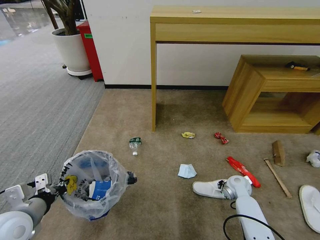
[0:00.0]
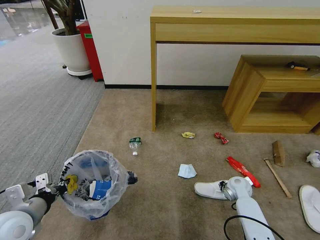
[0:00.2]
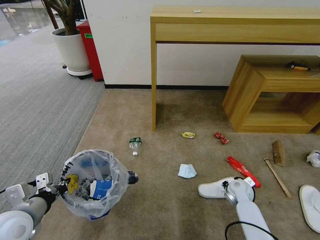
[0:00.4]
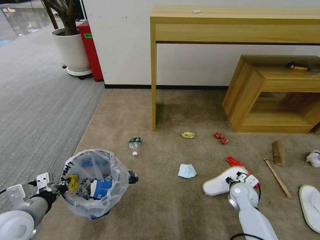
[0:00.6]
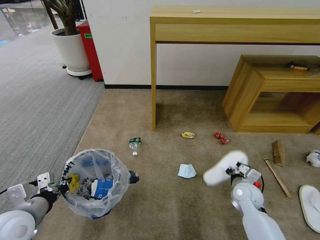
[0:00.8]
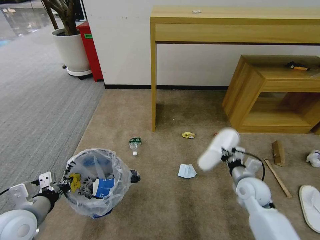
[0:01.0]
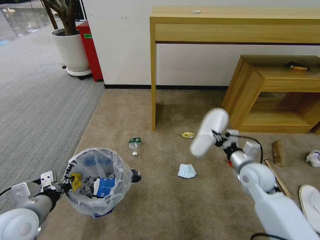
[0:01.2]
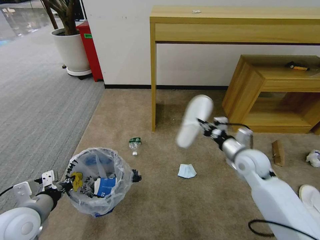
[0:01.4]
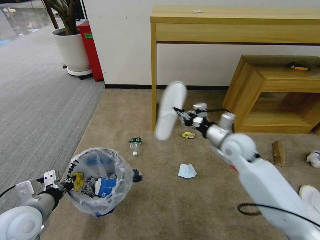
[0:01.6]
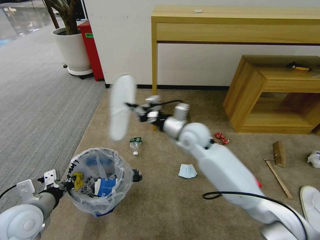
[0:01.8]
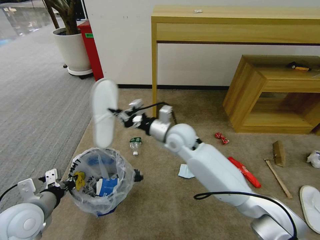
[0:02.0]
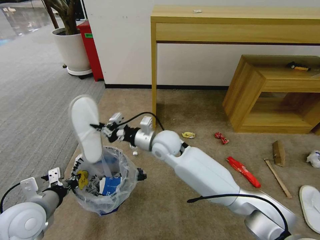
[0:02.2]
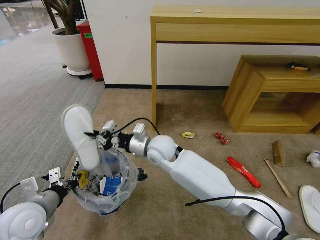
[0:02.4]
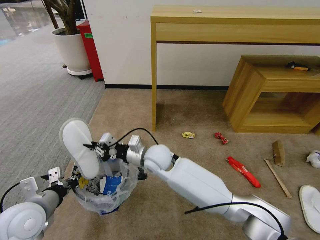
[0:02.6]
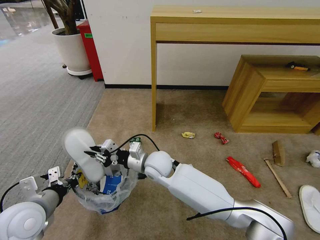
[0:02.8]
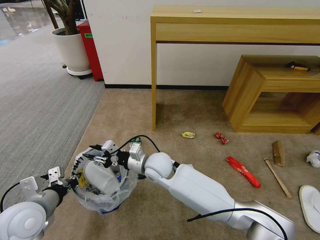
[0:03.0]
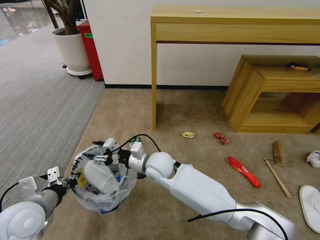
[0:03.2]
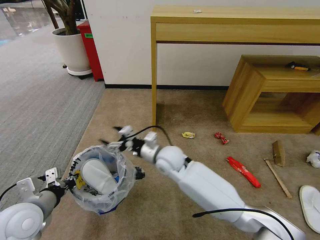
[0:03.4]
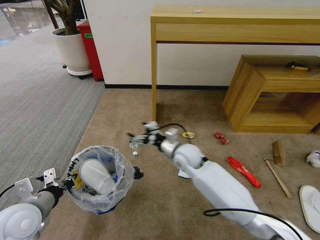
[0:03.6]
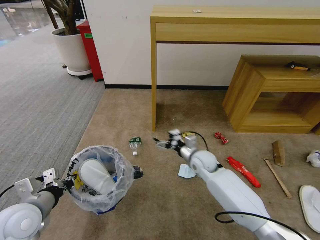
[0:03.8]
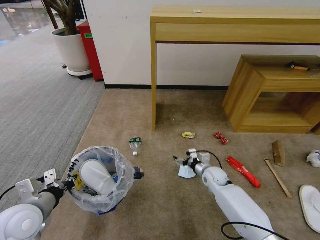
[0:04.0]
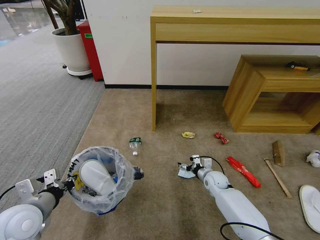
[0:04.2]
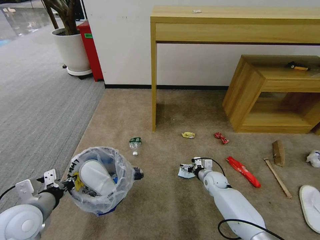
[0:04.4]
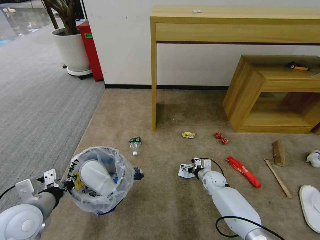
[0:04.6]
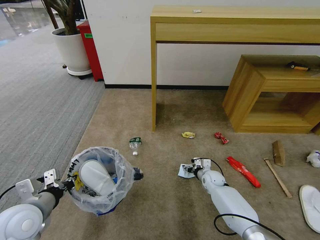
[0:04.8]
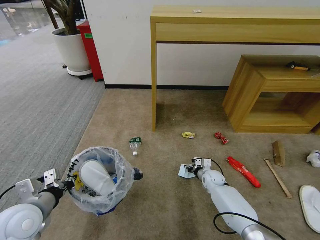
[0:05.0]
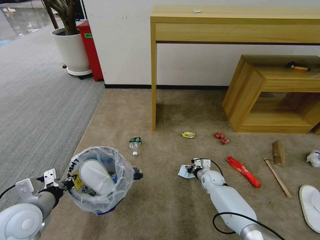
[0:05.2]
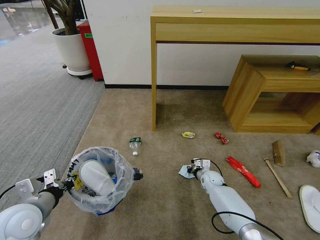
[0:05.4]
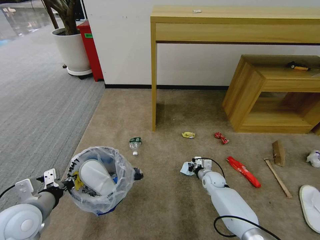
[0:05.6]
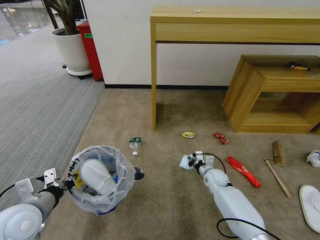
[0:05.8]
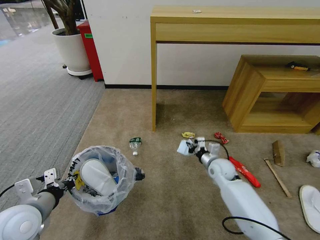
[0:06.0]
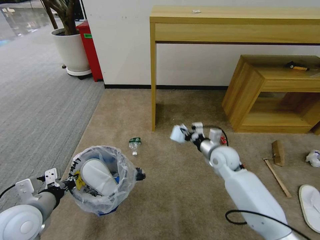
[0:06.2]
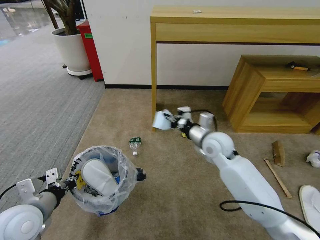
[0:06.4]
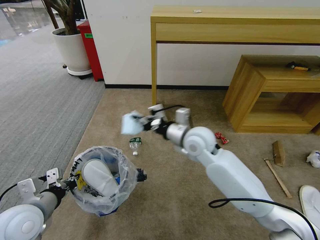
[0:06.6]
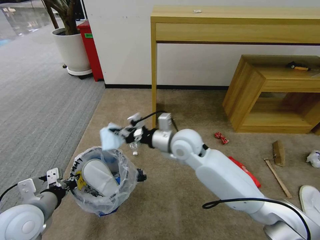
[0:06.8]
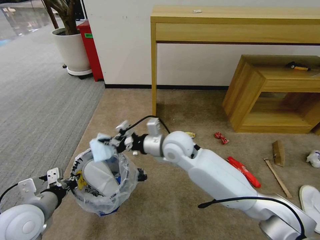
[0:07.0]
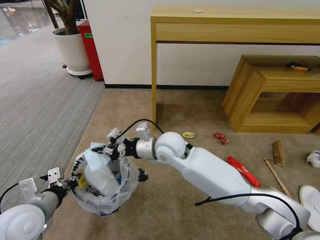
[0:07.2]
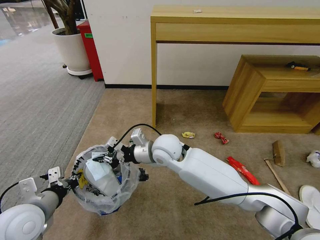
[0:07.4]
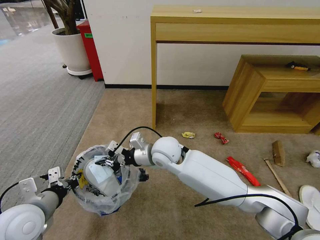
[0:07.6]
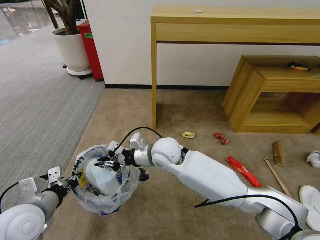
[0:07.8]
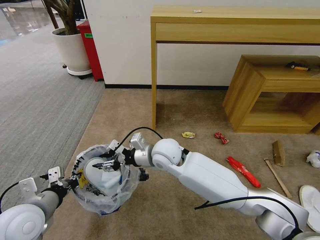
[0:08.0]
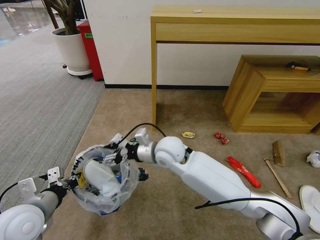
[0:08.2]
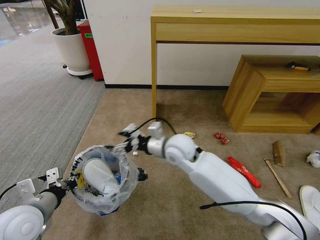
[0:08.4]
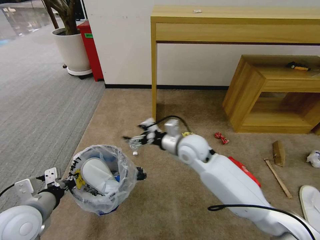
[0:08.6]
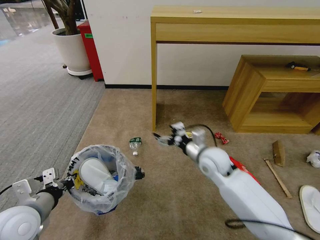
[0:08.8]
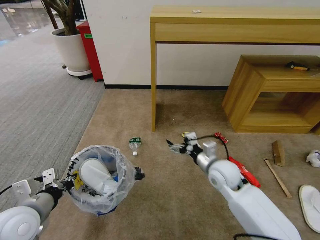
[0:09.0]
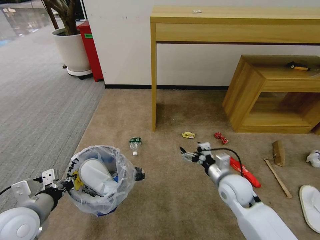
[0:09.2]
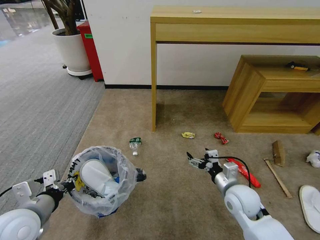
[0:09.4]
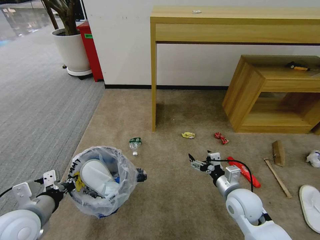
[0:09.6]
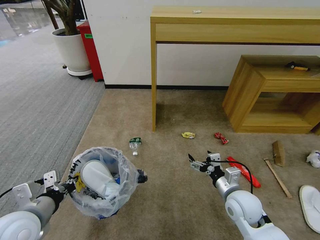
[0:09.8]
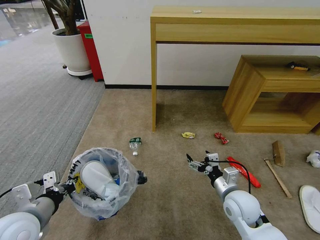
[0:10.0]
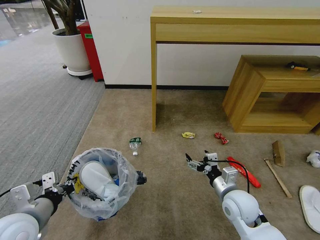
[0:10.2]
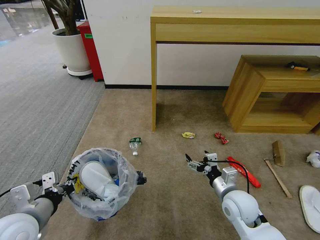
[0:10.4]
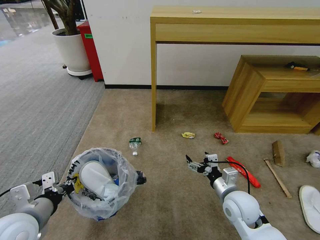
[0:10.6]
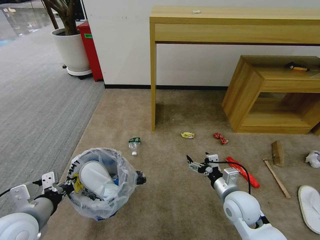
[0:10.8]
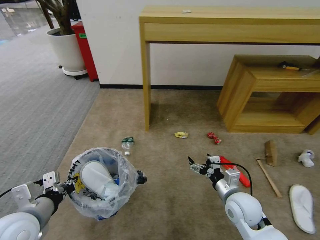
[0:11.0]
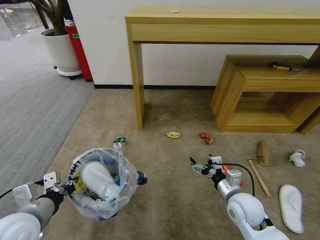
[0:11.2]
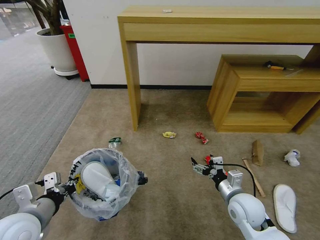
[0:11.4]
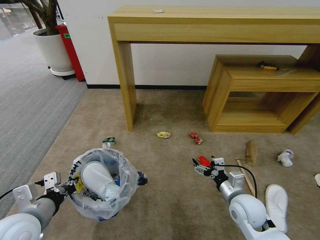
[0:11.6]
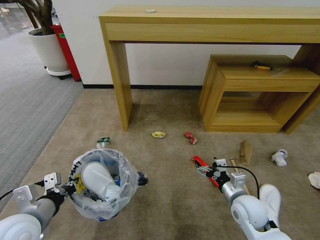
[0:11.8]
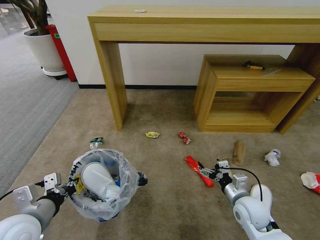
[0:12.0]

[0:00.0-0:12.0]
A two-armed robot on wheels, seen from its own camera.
Task of the whole recording: Pick up the trash bin and place the garbage on the floor into it.
0:00.0 to 0:01.6: The right gripper is displaced upward and to the left by roughly 25 cm.
0:01.6 to 0:03.0: The right gripper goes some 25 cm to the left, and opens.
0:03.0 to 0:04.4: The right gripper is displaced to the right and downward by some 35 cm, and opens.
0:04.4 to 0:06.0: The right gripper moves upward, about 10 cm, and closes.
0:06.0 to 0:07.6: The right gripper goes some 30 cm to the left and upward.
0:07.6 to 0:09.0: The right gripper heads to the right, covering roughly 20 cm, and opens its fingers.
0:09.0 to 0:10.4: The right gripper shifts about 10 cm backward.
0:10.4 to 0:12.0: The right gripper shifts by roughly 5 cm.

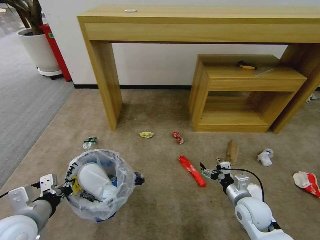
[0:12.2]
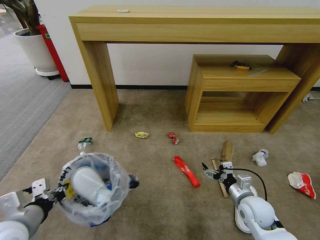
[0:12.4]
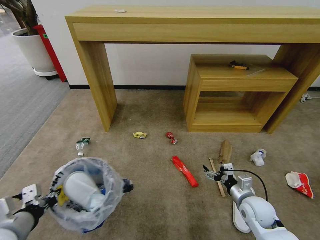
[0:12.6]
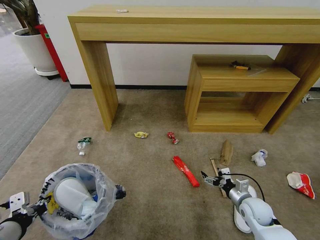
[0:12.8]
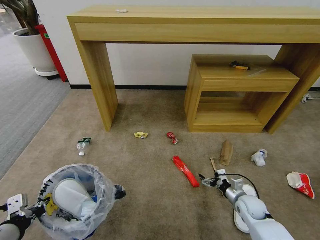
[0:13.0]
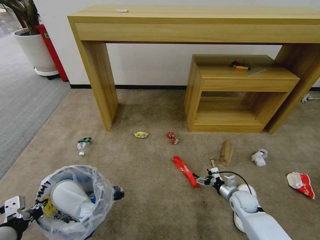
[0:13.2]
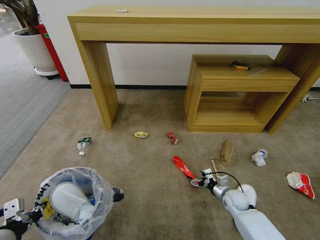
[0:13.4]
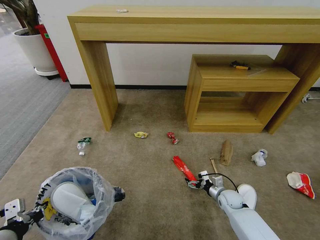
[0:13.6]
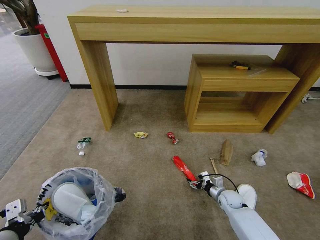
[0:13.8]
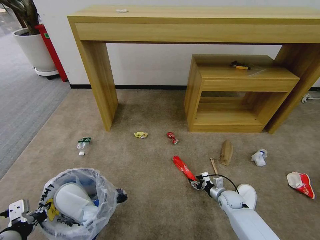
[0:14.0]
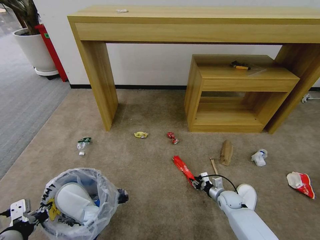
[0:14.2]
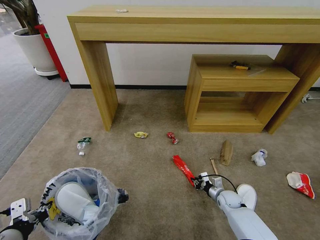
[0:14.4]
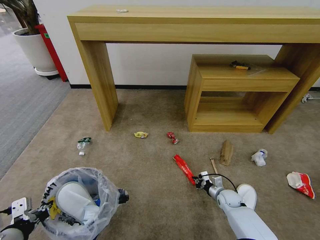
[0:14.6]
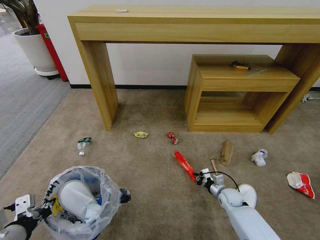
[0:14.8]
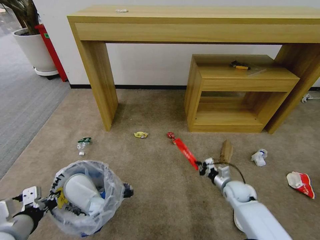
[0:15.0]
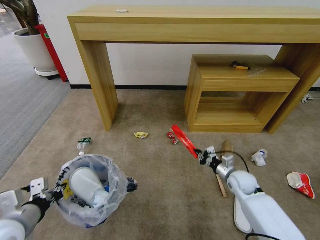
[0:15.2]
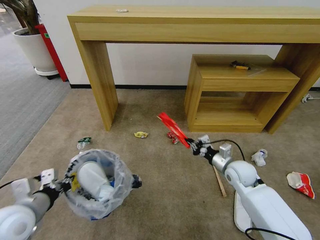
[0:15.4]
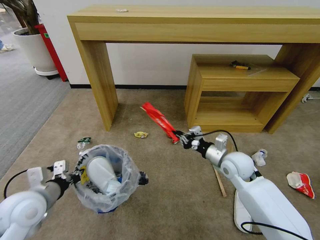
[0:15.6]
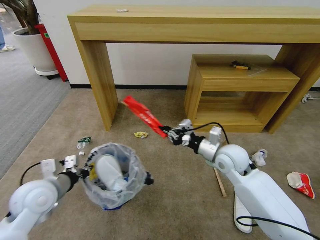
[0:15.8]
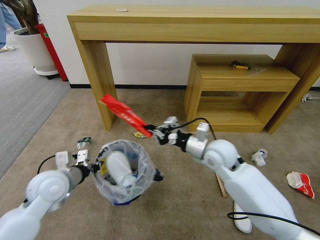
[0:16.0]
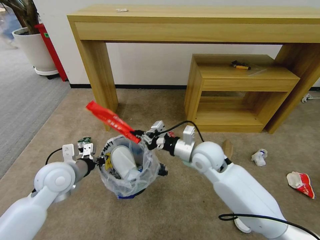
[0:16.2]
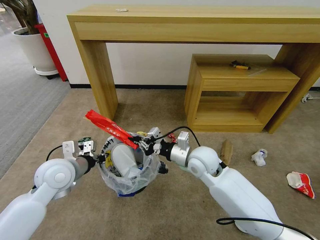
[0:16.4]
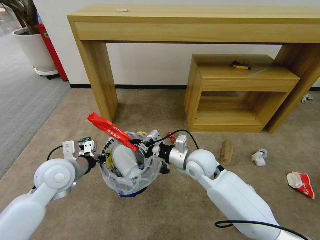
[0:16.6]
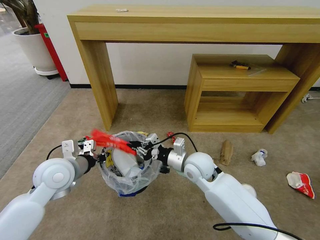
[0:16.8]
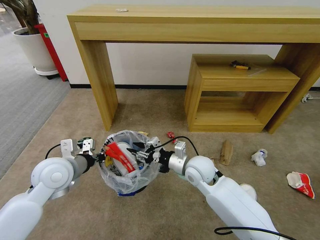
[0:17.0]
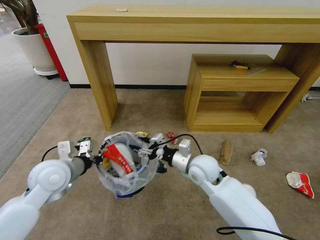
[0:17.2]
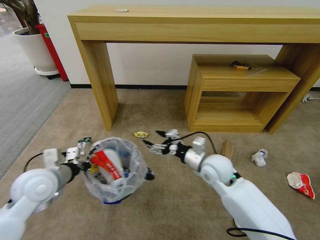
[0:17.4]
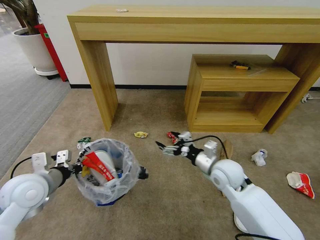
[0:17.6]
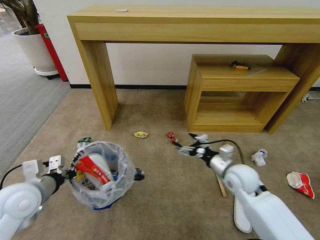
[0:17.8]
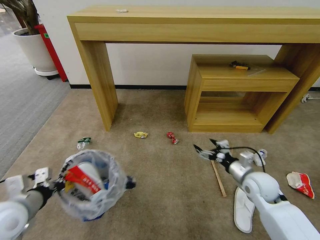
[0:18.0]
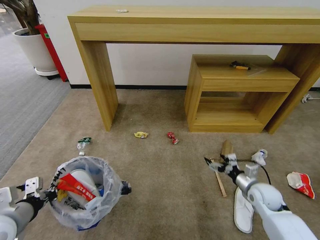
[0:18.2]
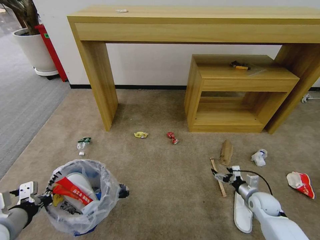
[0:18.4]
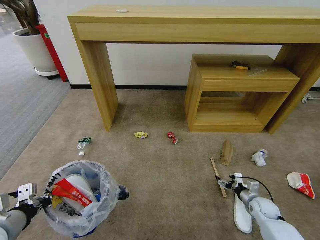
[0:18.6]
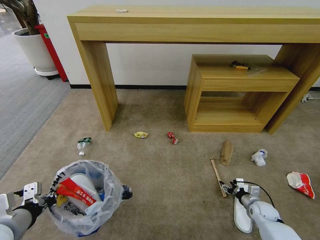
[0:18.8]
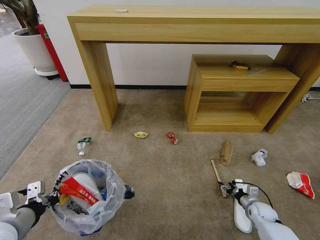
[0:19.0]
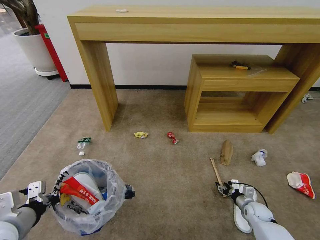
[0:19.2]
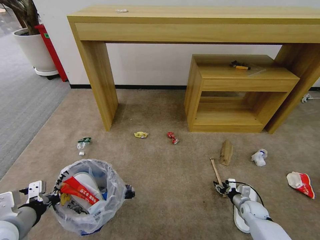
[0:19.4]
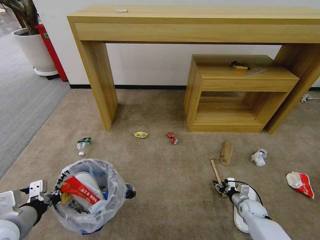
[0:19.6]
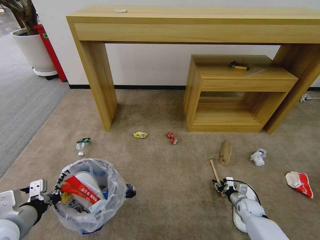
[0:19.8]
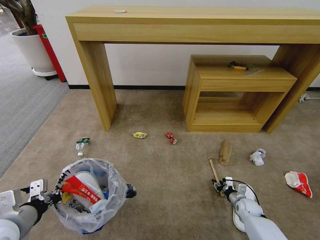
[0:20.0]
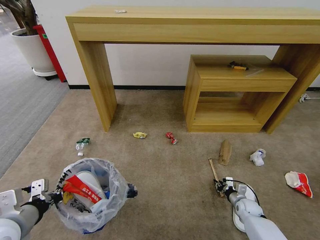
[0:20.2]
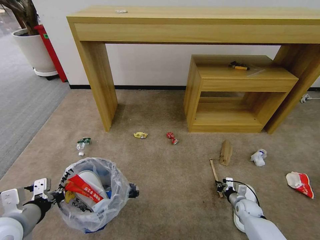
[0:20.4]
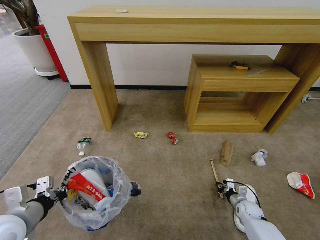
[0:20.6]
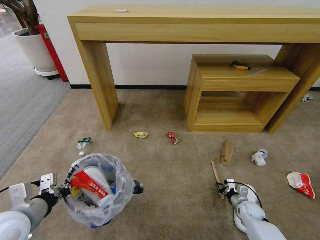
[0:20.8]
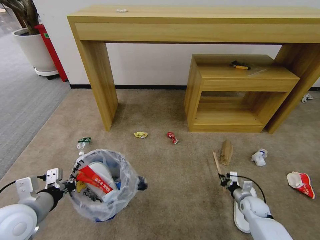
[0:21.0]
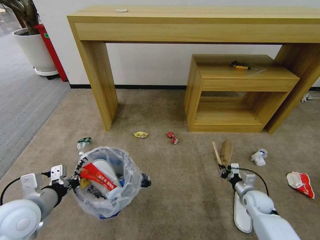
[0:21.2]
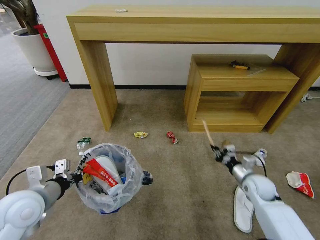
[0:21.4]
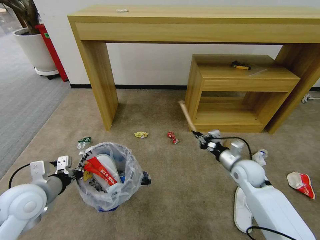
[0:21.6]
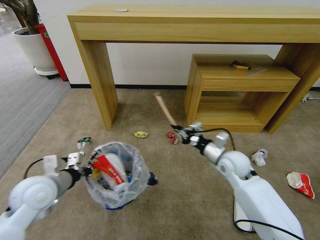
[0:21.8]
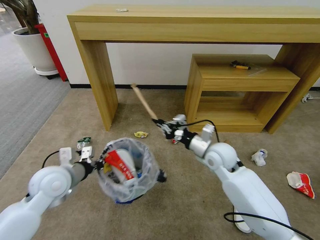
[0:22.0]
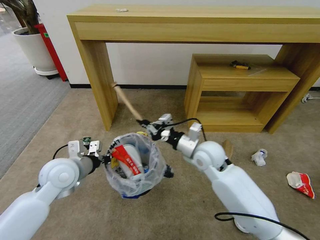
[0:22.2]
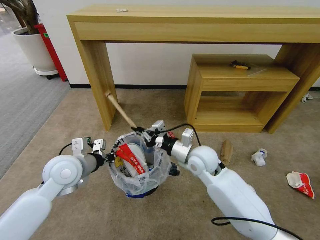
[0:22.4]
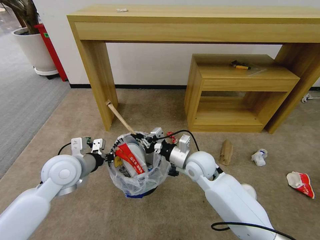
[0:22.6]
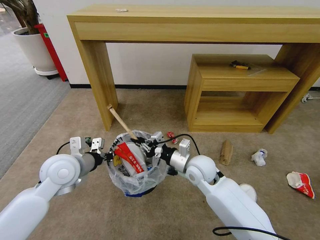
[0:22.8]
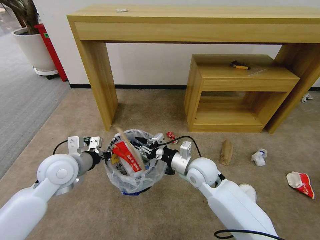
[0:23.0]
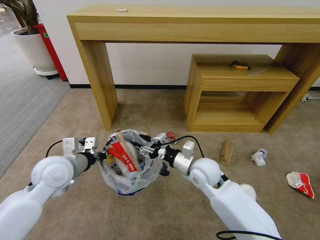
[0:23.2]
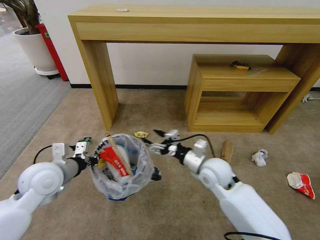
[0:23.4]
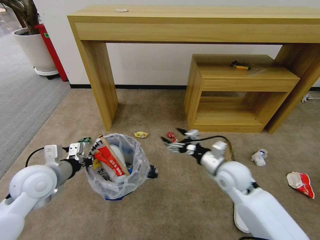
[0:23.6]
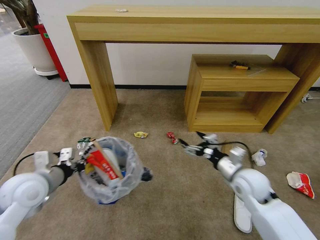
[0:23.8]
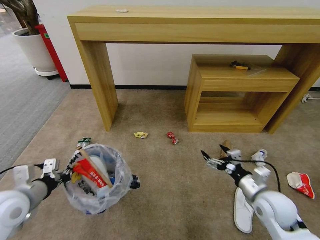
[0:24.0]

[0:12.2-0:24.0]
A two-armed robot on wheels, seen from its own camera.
Task of the whole recording: Pick up the trash bin and place the garbage on the floor into it.
0:12.2 to 0:13.6: The left gripper is displaced backward and to the left by approximately 10 cm, while the right gripper travels downward and forward by about 20 cm.
0:13.6 to 0:15.2: The left gripper heads forward, covering approximately 5 cm. Meanwhile the right gripper is displaced upward by approximately 10 cm, and closes up.
0:15.2 to 0:16.6: The right gripper heads to the left and upward, covering some 25 cm, while the left gripper shifts about 15 cm forward and to the right.
0:16.6 to 0:18.2: The left gripper is displaced backward and to the left by roughly 15 cm; the right gripper heads to the right and downward, covering approximately 30 cm, and opens up.
0:18.2 to 0:19.6: The right gripper is displaced downward by some 15 cm, and closes up.
0:19.6 to 0:21.0: The right gripper closes its fingers.
0:21.0 to 0:22.6: The right gripper heads to the left and upward, covering some 35 cm. The left gripper is displaced forward and to the right by roughly 15 cm.
0:22.6 to 0:24.0: The right gripper shifts some 20 cm to the right and backward, and opens up. The left gripper goes some 10 cm to the left and backward.
